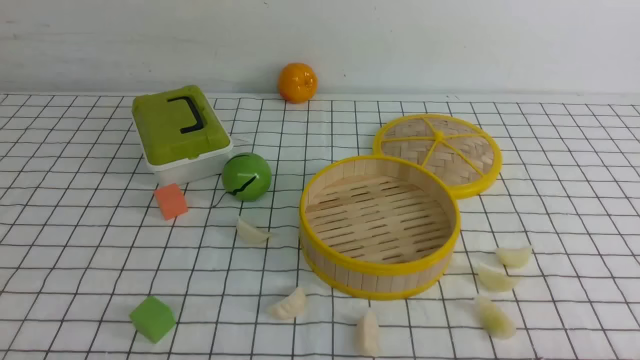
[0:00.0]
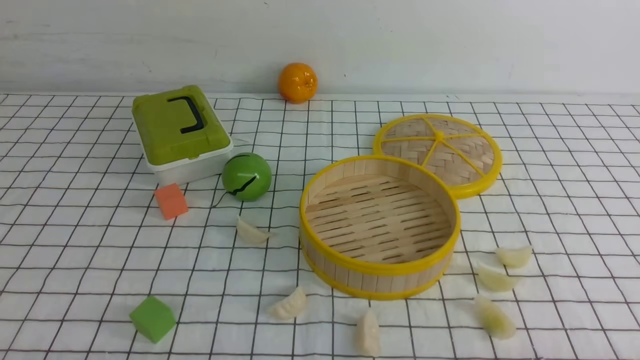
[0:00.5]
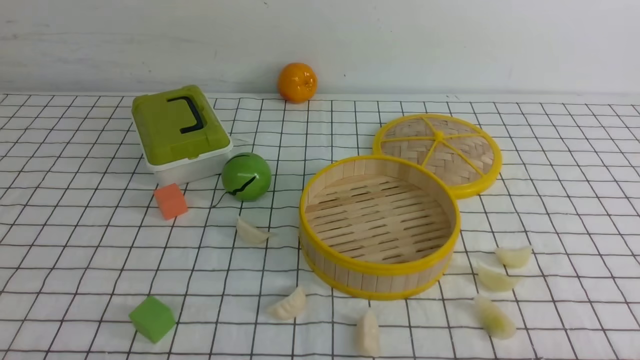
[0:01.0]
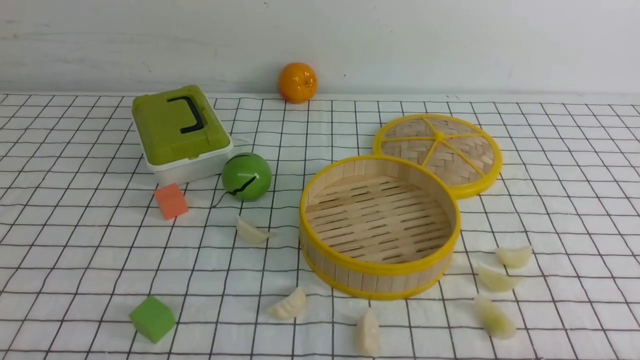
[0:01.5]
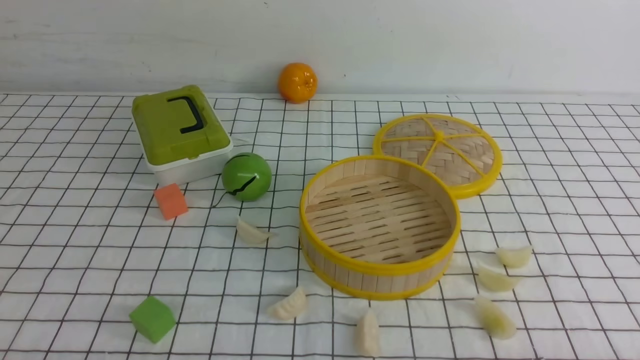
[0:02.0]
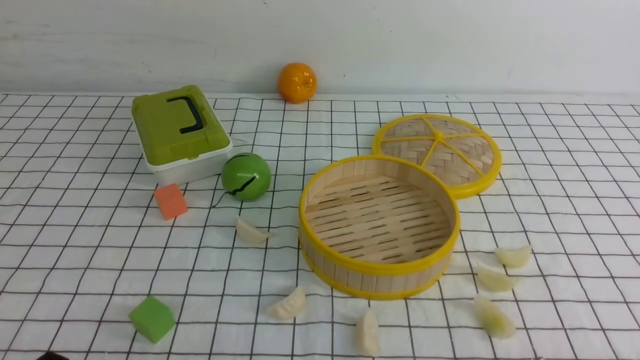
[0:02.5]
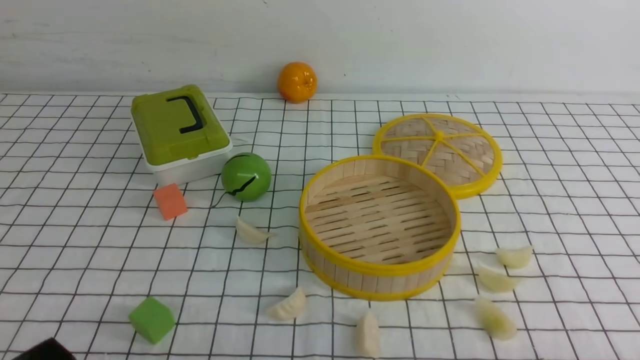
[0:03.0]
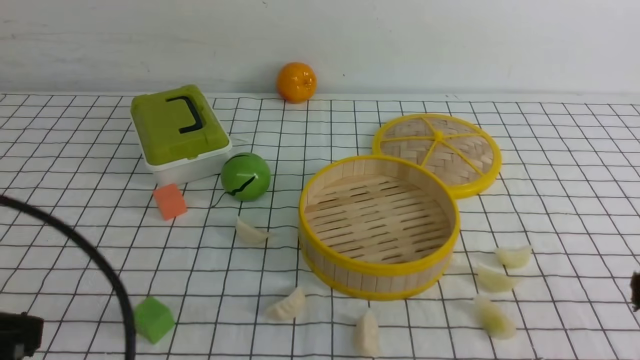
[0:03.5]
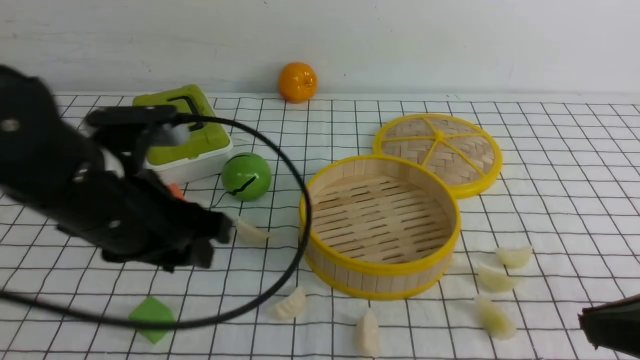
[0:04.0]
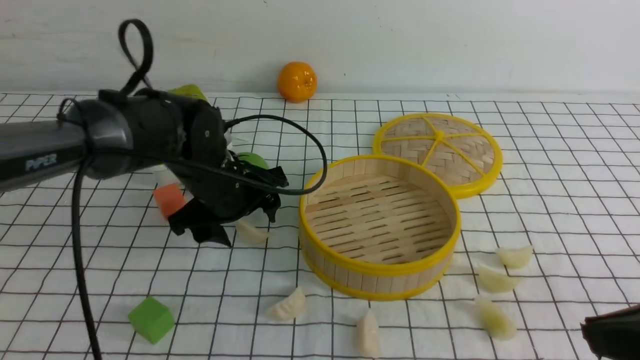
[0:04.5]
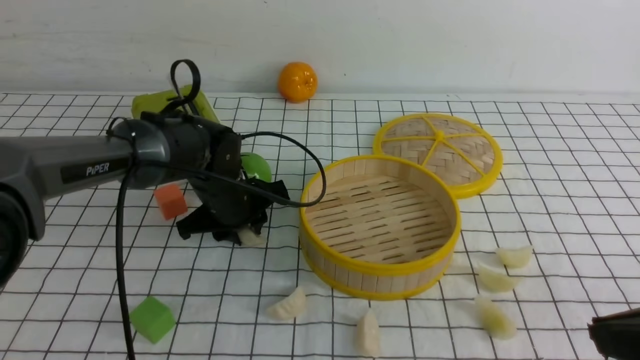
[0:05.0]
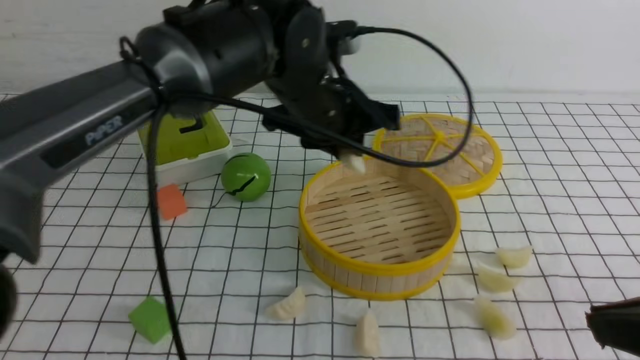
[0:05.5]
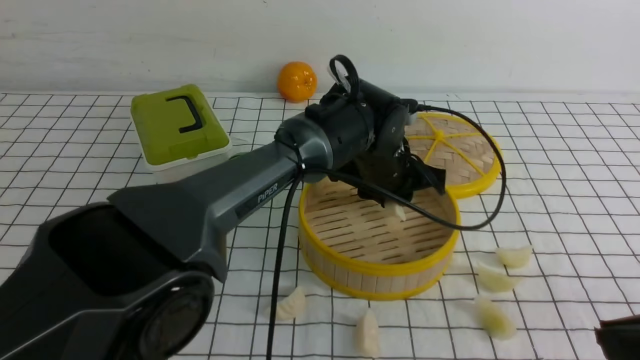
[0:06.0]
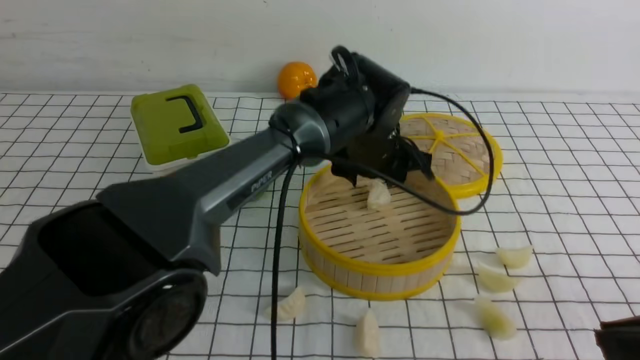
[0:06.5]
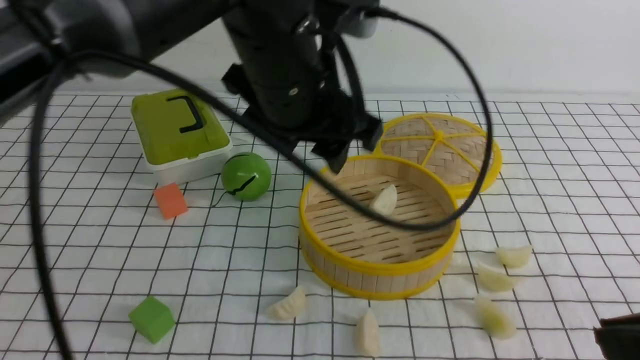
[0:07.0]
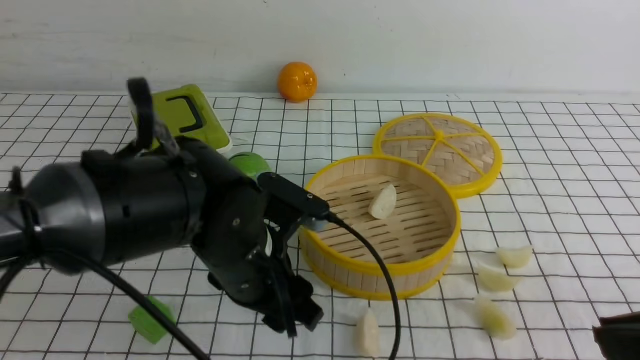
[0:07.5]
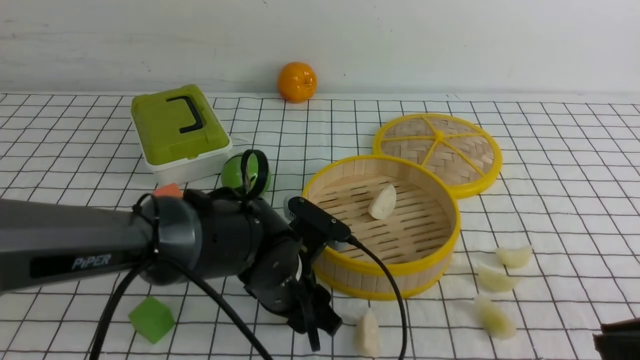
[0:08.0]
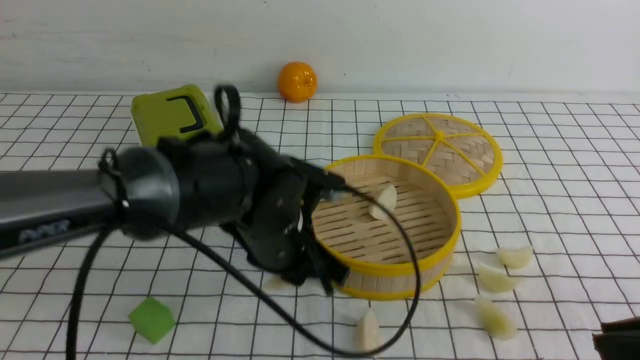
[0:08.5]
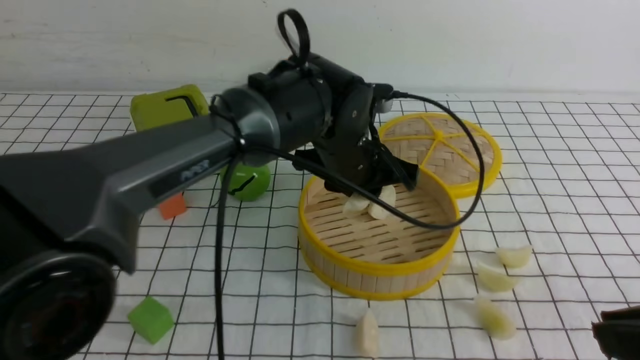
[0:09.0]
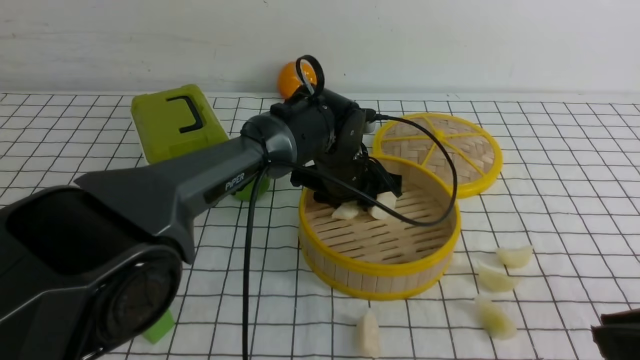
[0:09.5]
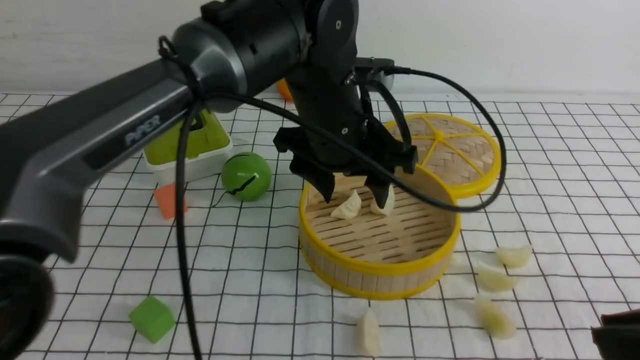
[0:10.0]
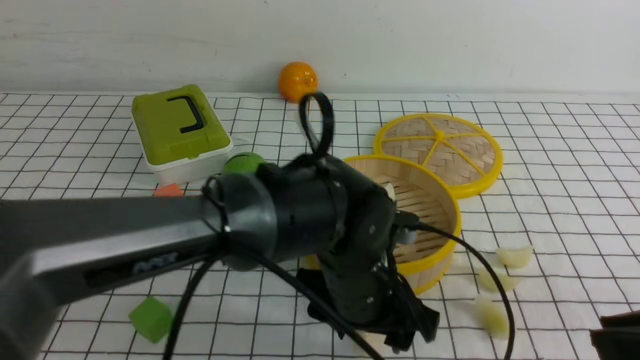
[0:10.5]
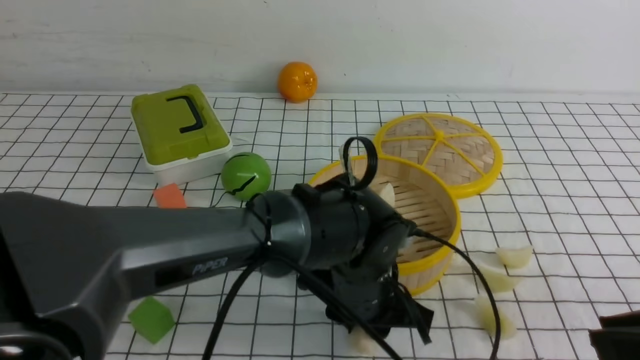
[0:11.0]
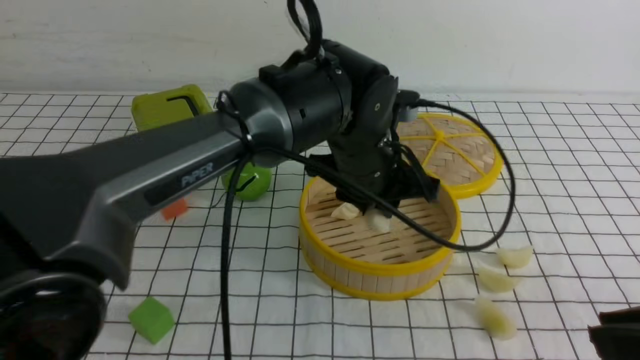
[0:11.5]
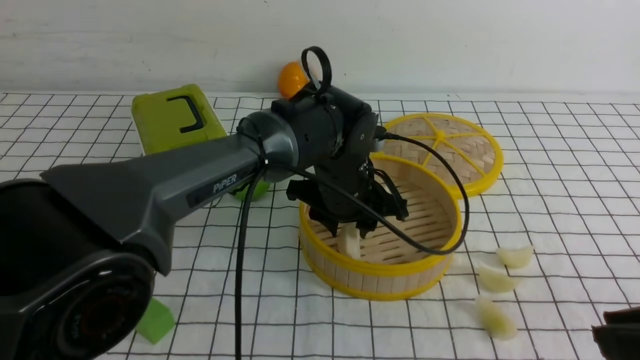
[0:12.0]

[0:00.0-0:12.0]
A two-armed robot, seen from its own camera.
Task of the whole recording: put the dumplings into the steamer on the table with the white tablecloth.
Step, 0:00.0 to 0:05.0: use the left arm to grab a dumpling.
Step, 0:05.5 to 0:06.0: use the left arm to put the dumpling into the steamer.
Step, 0:07.0 to 0:08.5: use the left arm to grab a dumpling.
Step, 0:09.0 to 0:09.5: use the left arm to put the dumpling into the steamer.
Step, 0:10.0 to 0:11.0: use the left arm to grab a dumpling.
0:02.0 to 0:04.0: The right gripper heads upward, forward and to the left, covering some 20 cm, and closes its fingers. Meanwhile the left gripper goes about 25 cm forward, upward and to the right, and opens.
0:04.0 to 0:06.0: The left gripper travels to the right and forward by approximately 30 cm, and opens, then closes again.
0:06.0 to 0:08.0: The left gripper goes some 15 cm backward and to the left, goes upward and returns, roughly 15 cm each way, and opens.
0:08.0 to 0:10.0: The left gripper shifts roughly 15 cm upward and forward, and closes, then reopens.
0:10.0 to 0:12.0: The left gripper travels downward by approximately 5 cm, moves roughly 10 cm backward and comes back, and closes.

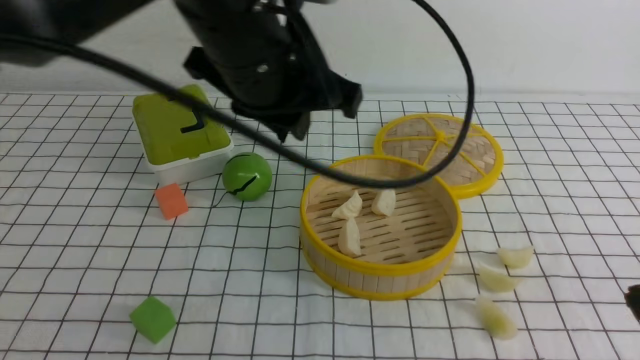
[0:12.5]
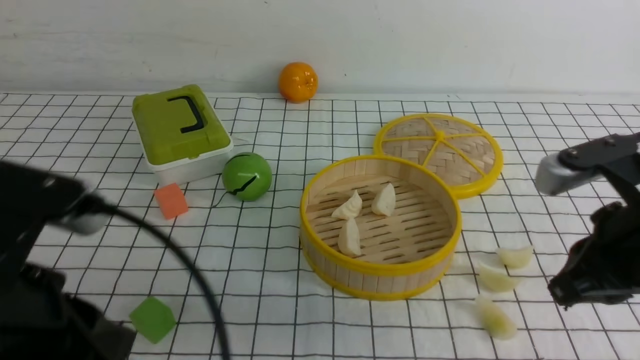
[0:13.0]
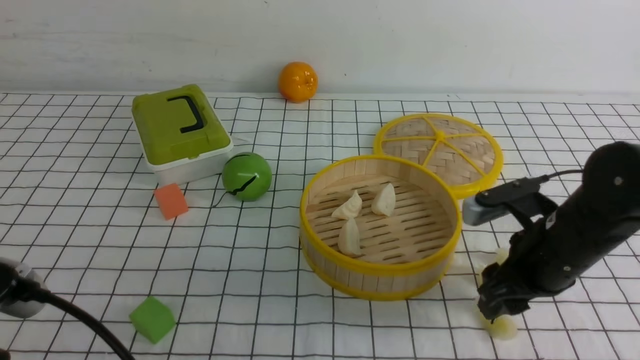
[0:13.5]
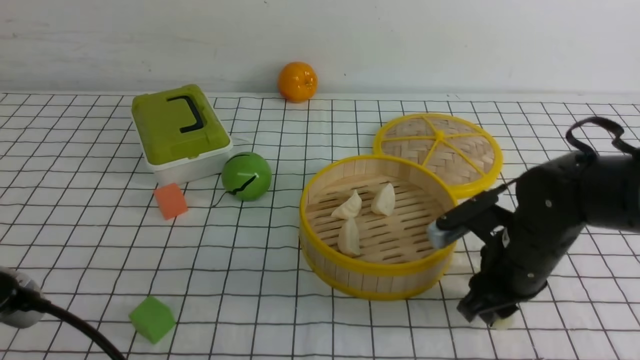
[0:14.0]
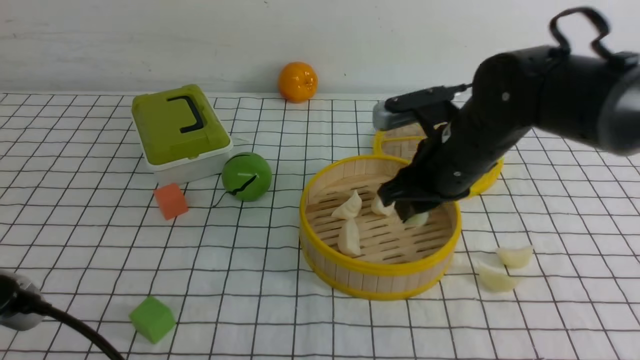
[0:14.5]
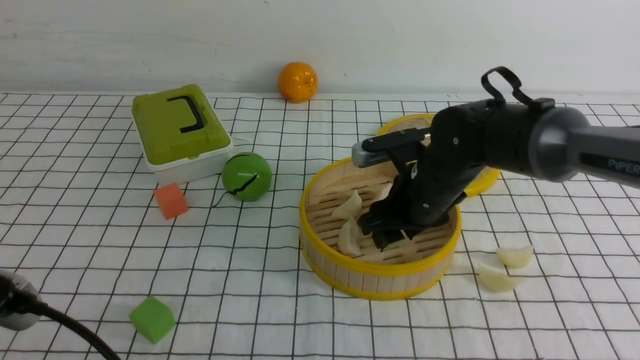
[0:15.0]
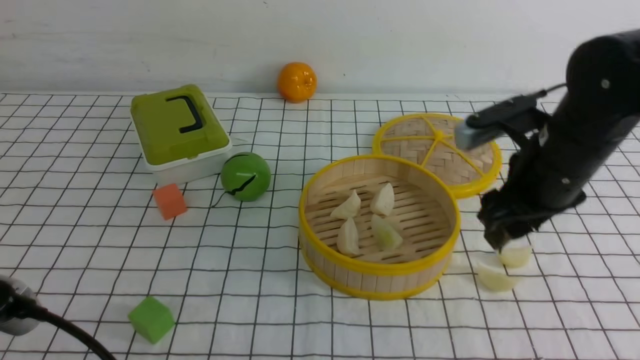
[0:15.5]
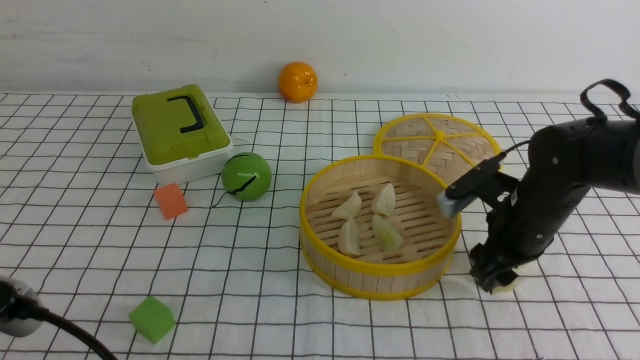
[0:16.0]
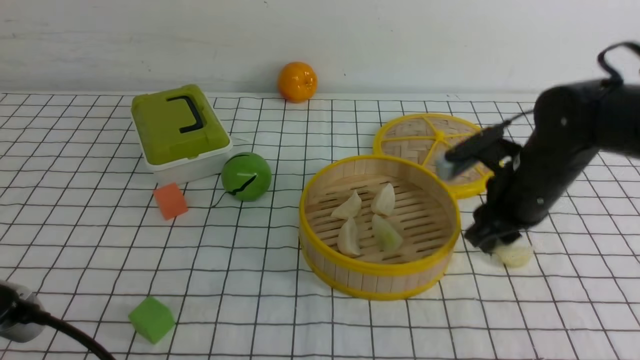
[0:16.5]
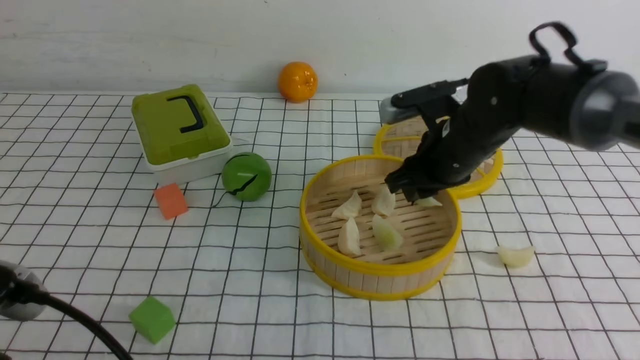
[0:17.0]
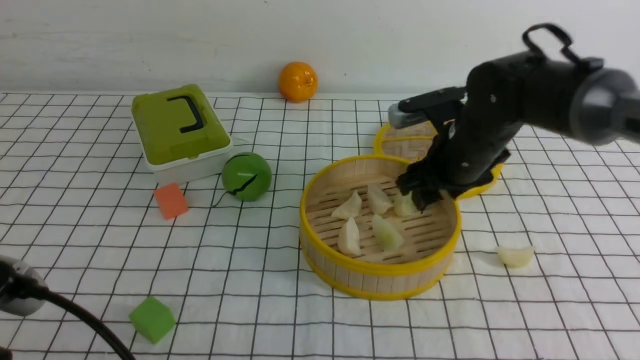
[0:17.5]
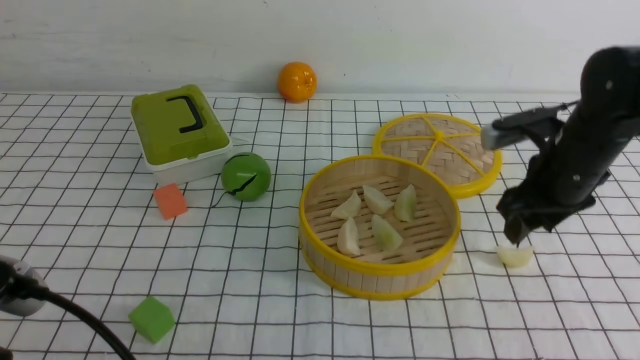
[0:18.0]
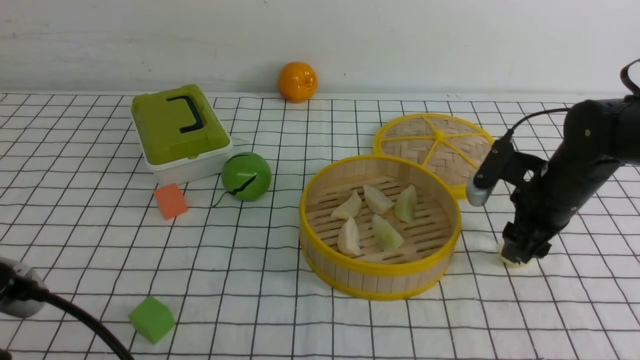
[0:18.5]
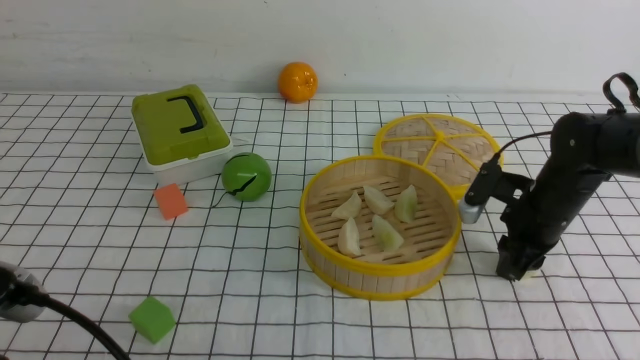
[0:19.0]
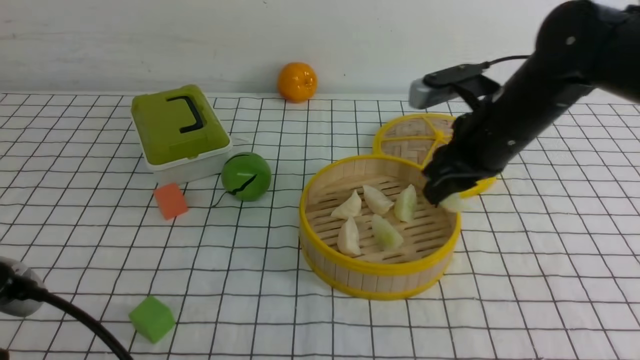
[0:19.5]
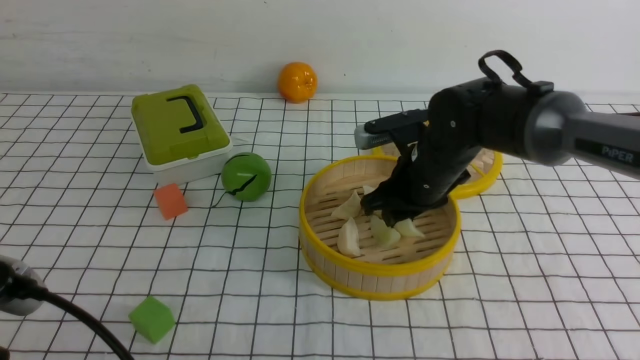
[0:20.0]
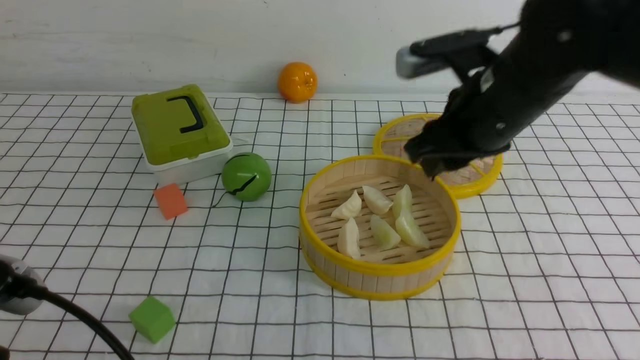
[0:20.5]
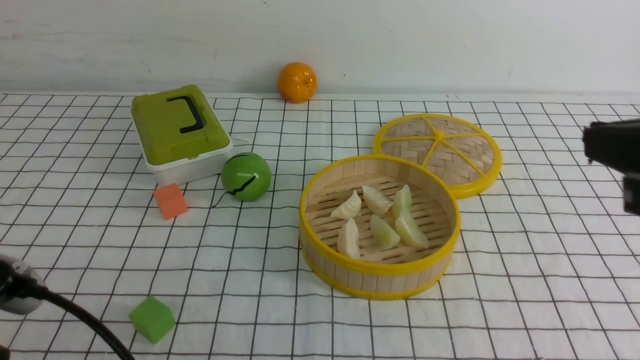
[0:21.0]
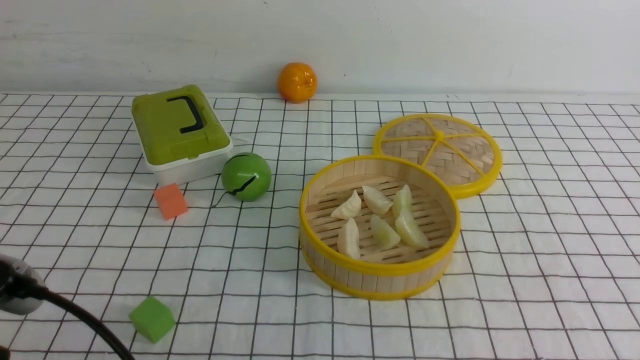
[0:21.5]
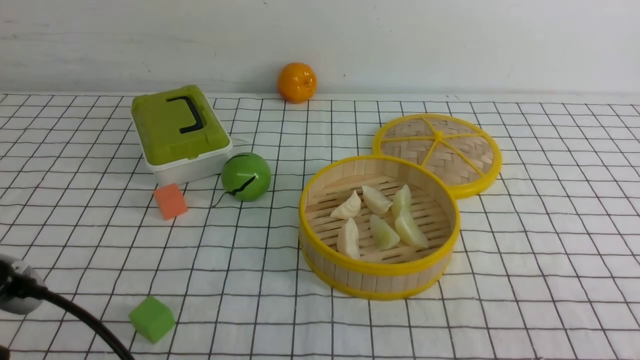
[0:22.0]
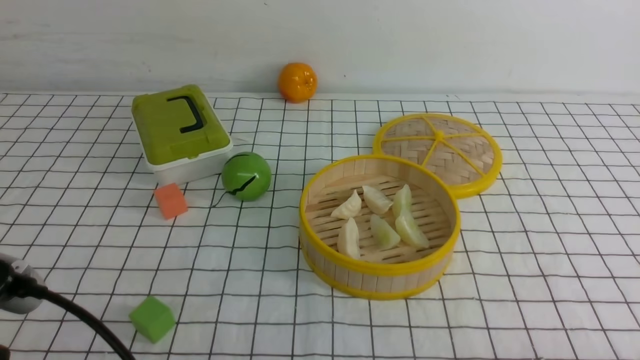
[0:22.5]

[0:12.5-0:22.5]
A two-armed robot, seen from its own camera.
Task of the whole recording: put the dumplings into the steamer on the table with the white tablecloth.
Step, 0:12.5 to 0:14.0: use the right arm to grab a dumpling.
Step, 0:14.5 to 0:15.0: use the right arm to put the dumpling into the steamer.
Step, 0:16.0 to 0:16.5: use the right arm to grab a dumpling.
Step, 0:17.0 to 0:17.5: use the right arm to put the dumpling into the steamer.
0:12.5 to 0:14.5: The right gripper moves forward, to the left and downward, approximately 25 cm, and opens up; the left gripper shifts roughly 30 cm backward and to the left, and closes up.
0:14.5 to 0:16.5: The right gripper moves to the right, approximately 5 cm, and opens and closes again.
0:16.5 to 0:18.5: The right gripper heads to the right, covering roughly 5 cm, and opens its fingers.
0:18.5 to 0:20.5: The right gripper swings up and down, approximately 20 cm each way, with 2 reversals, and closes.
0:20.5 to 0:22.5: The right gripper shifts approximately 35 cm backward, downward and to the right, and closes.
